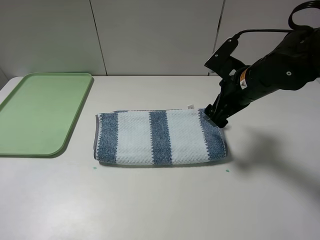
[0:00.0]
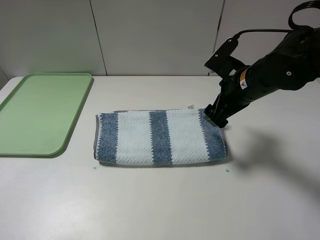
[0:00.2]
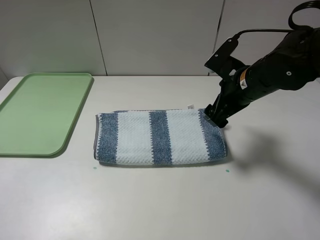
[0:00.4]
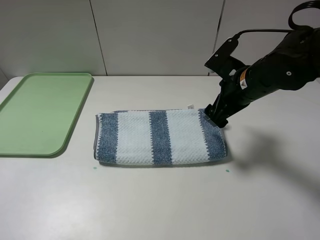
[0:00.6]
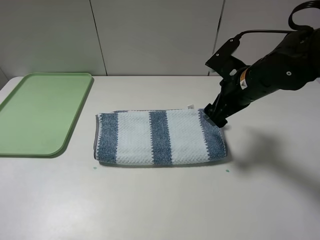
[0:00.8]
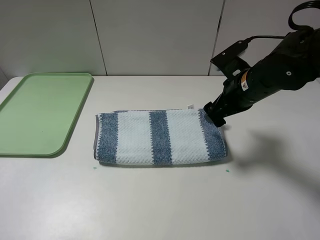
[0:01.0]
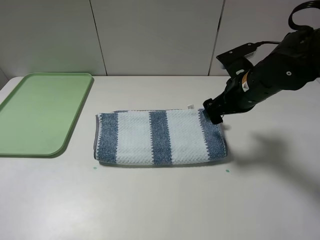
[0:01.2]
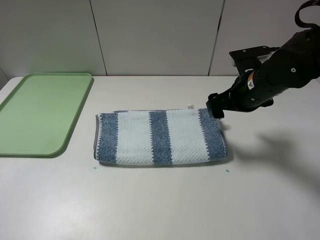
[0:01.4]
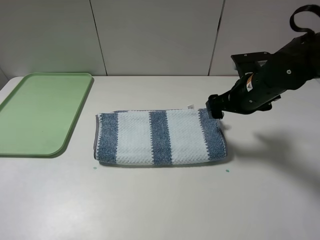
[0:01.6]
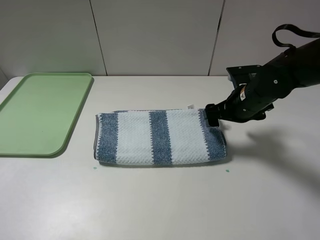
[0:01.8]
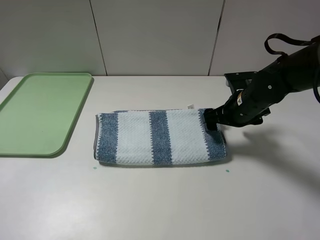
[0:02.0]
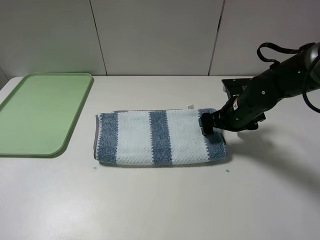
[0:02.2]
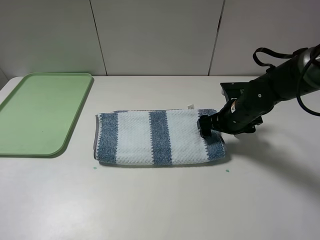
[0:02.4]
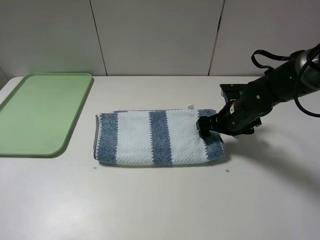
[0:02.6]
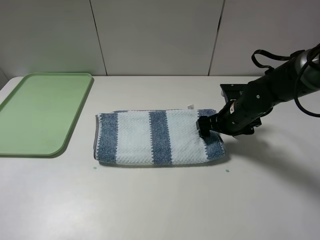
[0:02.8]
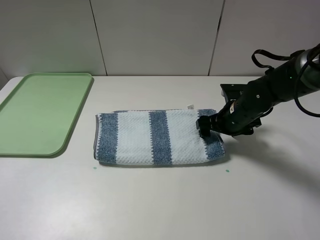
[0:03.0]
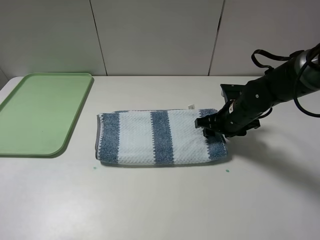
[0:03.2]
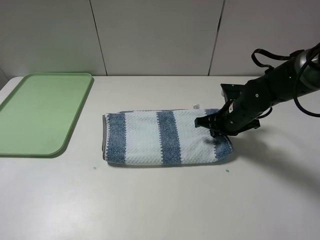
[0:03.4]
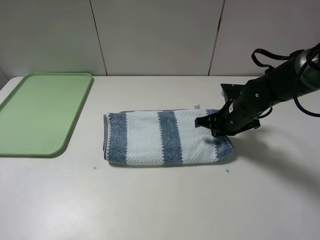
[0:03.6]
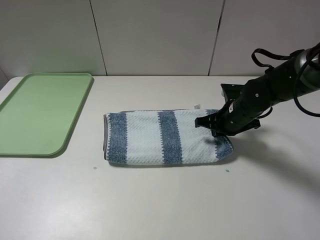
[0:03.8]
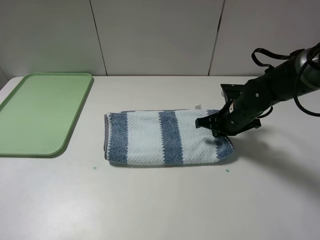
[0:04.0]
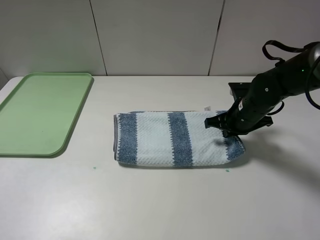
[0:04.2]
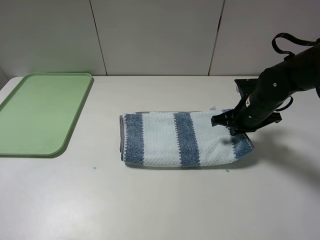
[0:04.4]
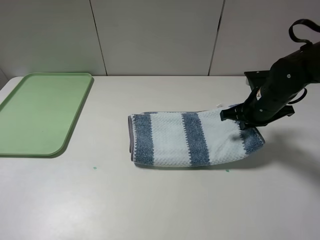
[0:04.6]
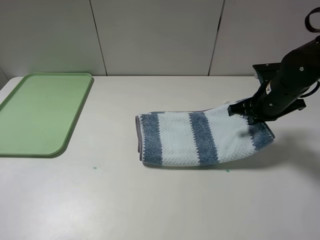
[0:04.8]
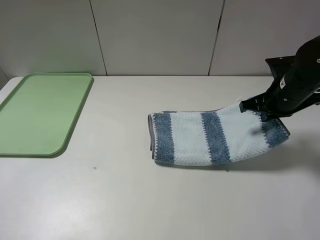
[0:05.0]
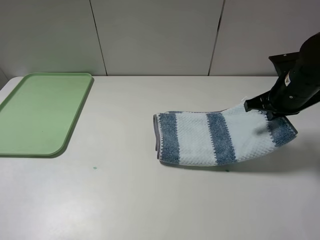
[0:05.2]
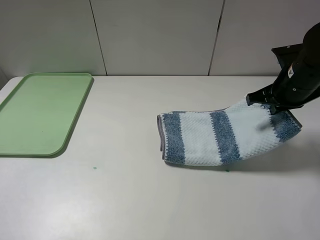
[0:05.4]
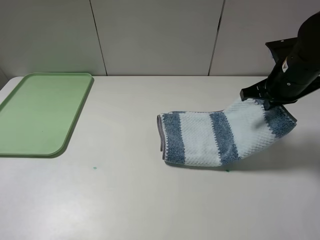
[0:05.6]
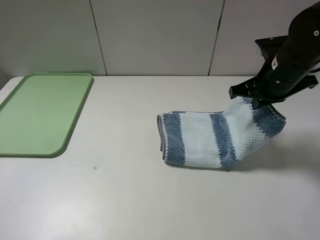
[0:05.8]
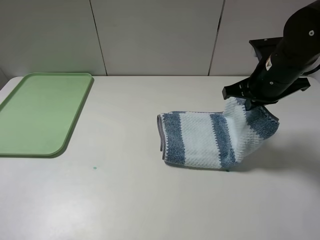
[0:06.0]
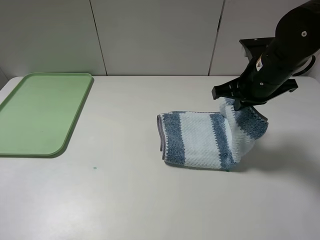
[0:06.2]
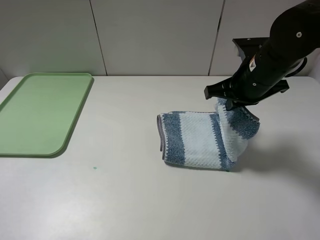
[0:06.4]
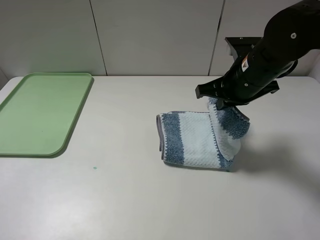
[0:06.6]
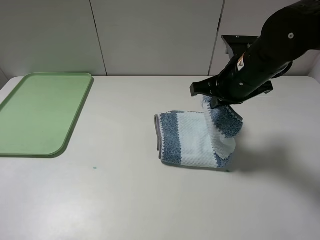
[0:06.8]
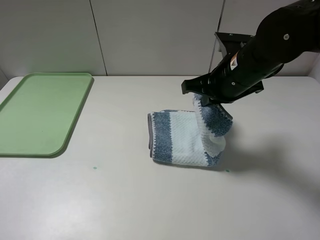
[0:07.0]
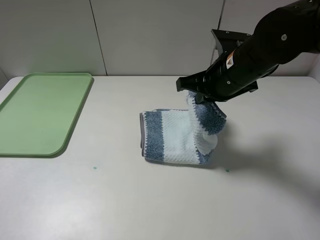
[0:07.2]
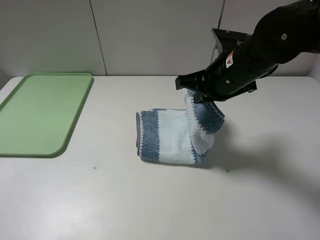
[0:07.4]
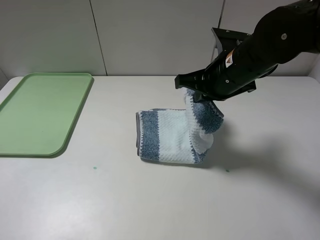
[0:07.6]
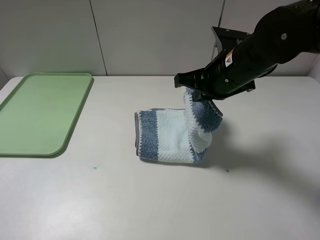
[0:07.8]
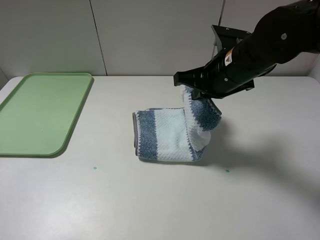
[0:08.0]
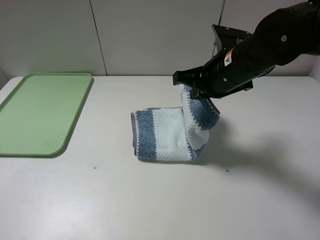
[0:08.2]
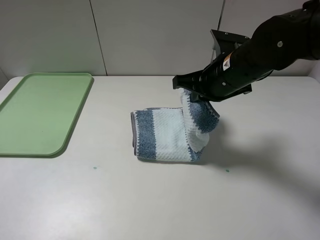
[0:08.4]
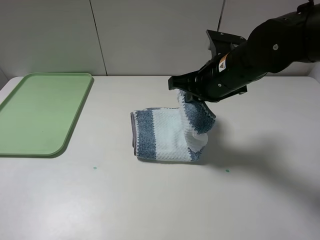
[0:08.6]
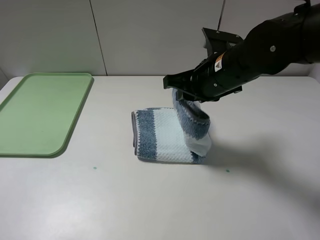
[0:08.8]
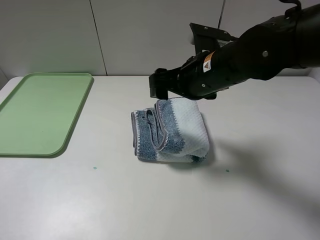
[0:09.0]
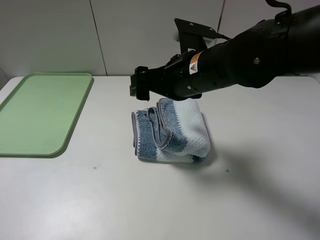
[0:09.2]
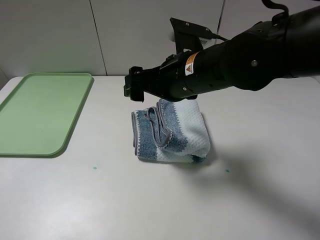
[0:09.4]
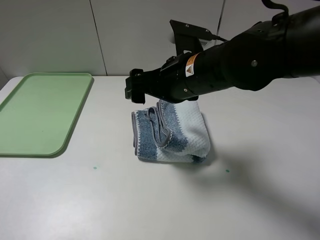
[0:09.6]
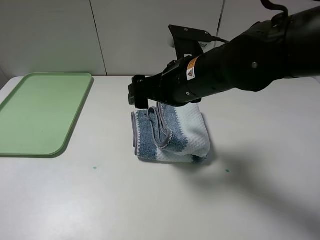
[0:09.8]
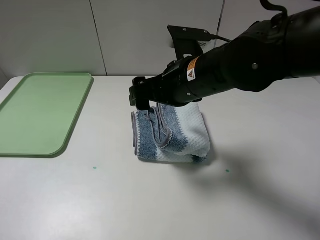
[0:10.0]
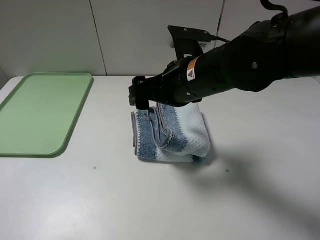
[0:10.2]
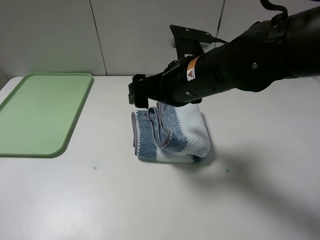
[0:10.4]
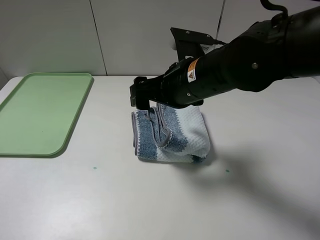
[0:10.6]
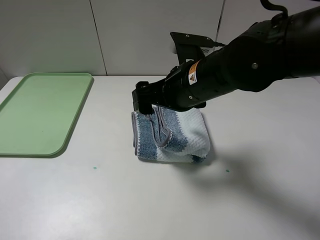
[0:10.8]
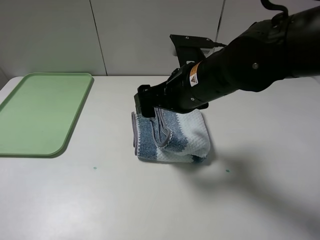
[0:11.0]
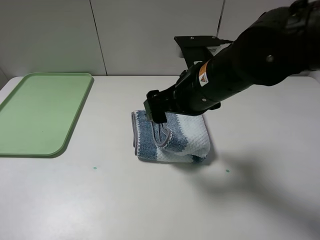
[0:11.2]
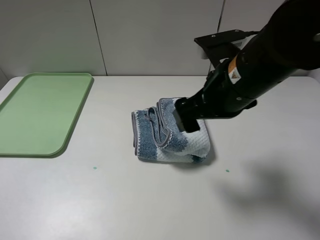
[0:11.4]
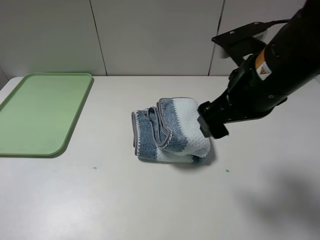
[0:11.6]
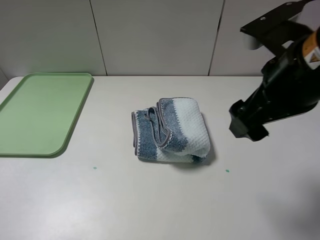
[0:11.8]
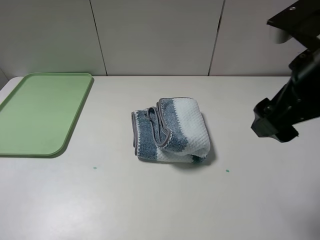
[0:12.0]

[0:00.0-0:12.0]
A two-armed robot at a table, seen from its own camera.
Step, 0:00.0 to 0:03.8: Grasp the blue white towel with the right gripper.
Step, 0:04.0 to 0:09.8: Fold the blue white towel from right to left with right gripper.
0:01.6 to 0:03.0: The right gripper shifts about 5 cm downward.
0:03.0 to 0:04.4: The right gripper closes its fingers.
0:04.4 to 0:06.0: The right gripper shifts roughly 10 cm upward.
0:06.0 to 0:07.6: The right gripper moves to the left, about 10 cm.
0:07.6 to 0:09.0: The right gripper opens its fingers.
0:09.0 to 0:10.4: There are only small adjustments of the grippers.
0:10.4 to 0:12.0: The right gripper heads to the right, backward and upward, covering approximately 15 cm.

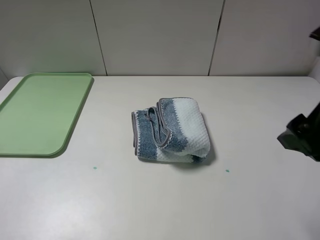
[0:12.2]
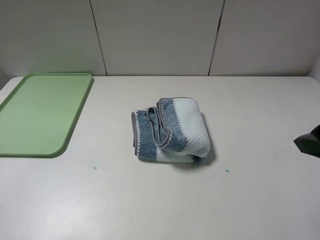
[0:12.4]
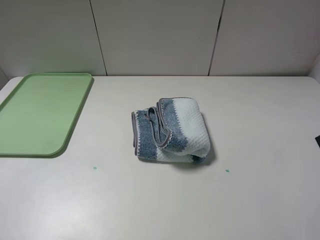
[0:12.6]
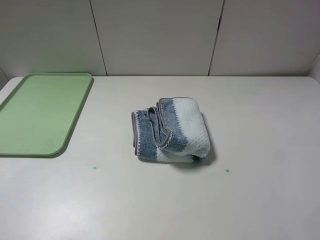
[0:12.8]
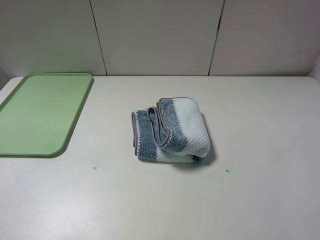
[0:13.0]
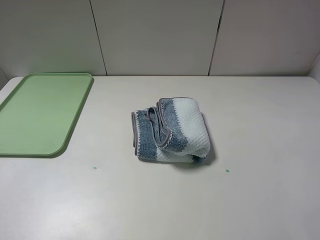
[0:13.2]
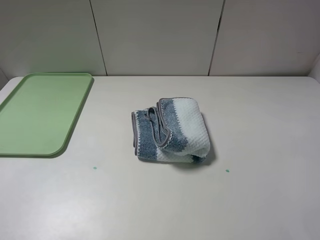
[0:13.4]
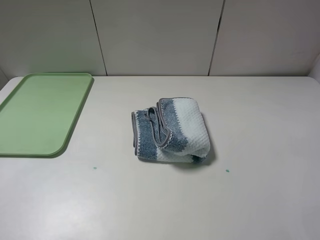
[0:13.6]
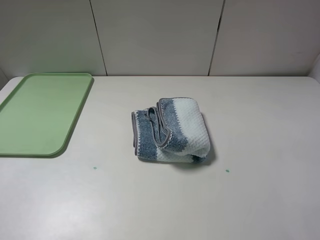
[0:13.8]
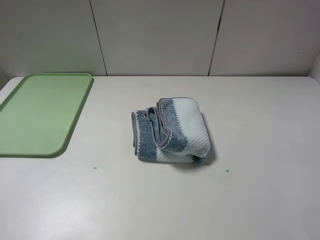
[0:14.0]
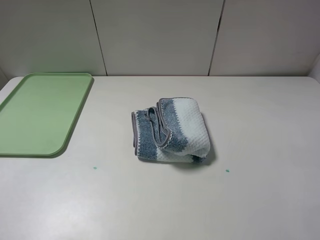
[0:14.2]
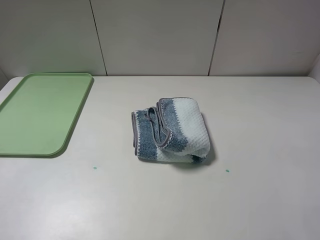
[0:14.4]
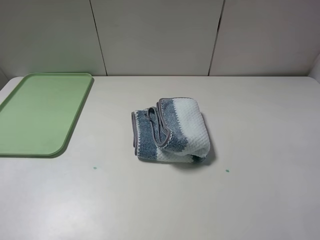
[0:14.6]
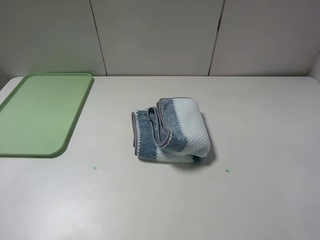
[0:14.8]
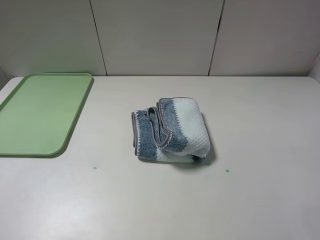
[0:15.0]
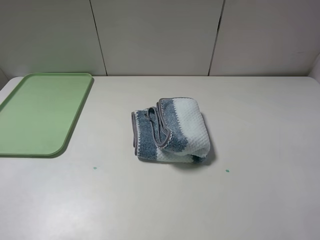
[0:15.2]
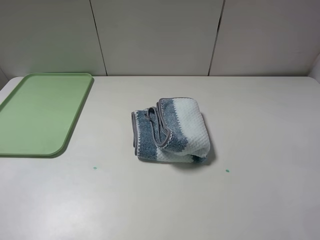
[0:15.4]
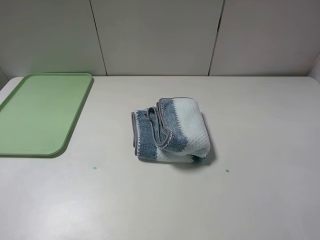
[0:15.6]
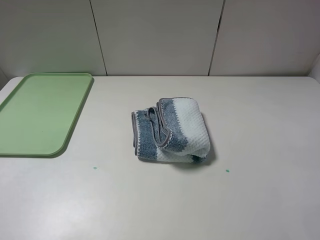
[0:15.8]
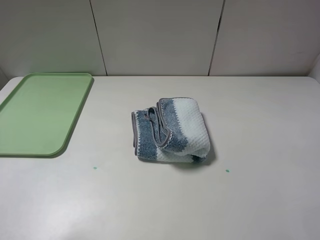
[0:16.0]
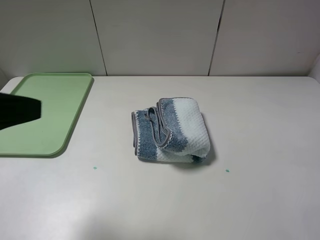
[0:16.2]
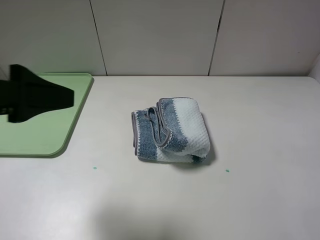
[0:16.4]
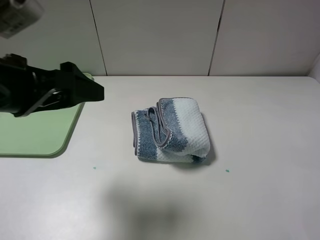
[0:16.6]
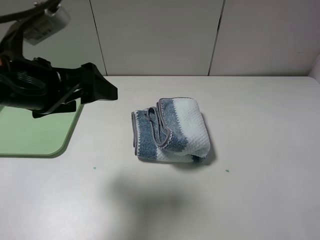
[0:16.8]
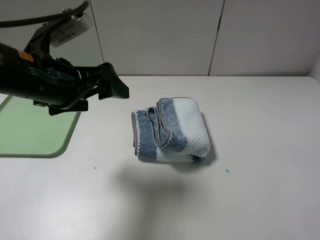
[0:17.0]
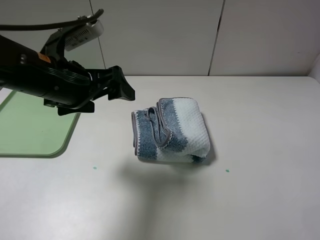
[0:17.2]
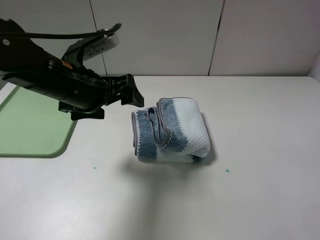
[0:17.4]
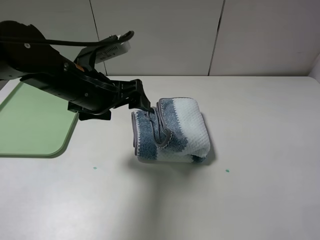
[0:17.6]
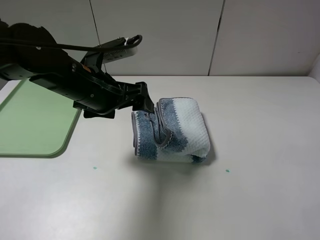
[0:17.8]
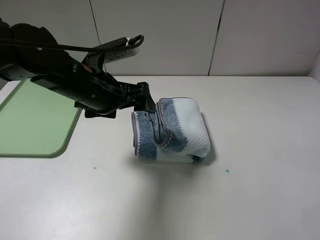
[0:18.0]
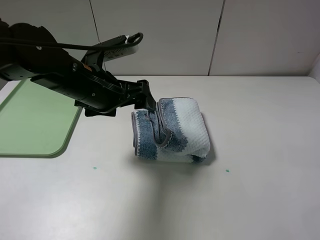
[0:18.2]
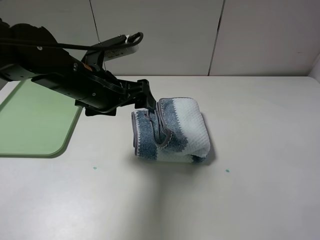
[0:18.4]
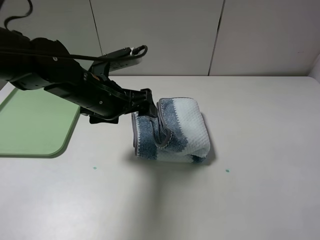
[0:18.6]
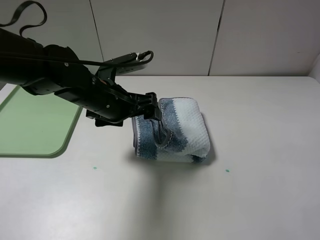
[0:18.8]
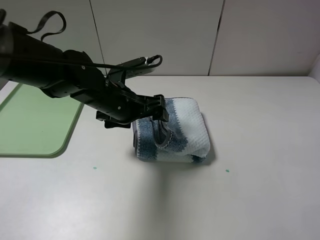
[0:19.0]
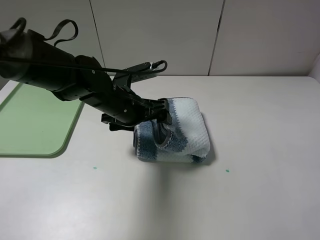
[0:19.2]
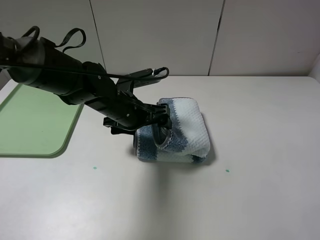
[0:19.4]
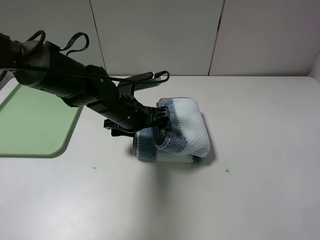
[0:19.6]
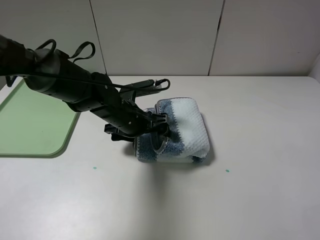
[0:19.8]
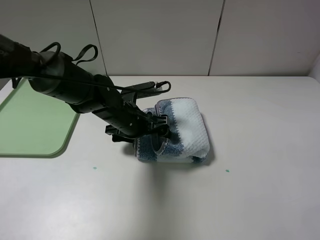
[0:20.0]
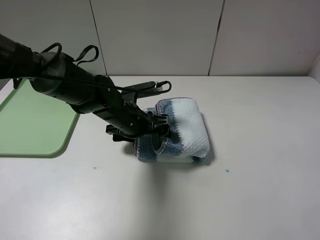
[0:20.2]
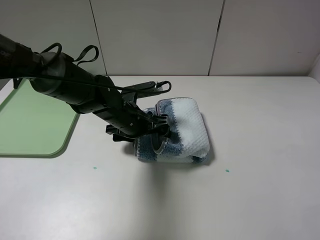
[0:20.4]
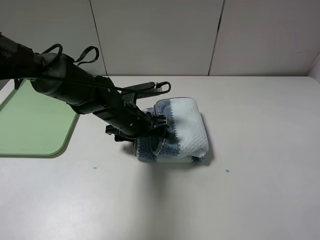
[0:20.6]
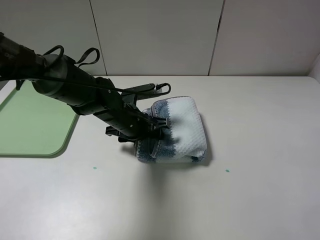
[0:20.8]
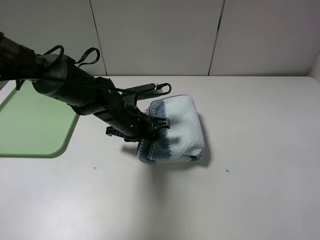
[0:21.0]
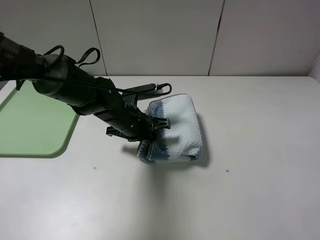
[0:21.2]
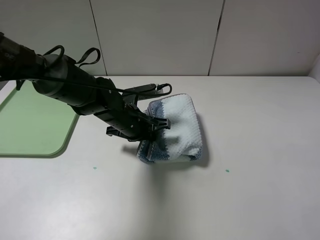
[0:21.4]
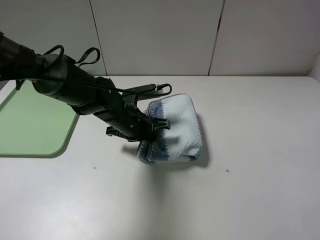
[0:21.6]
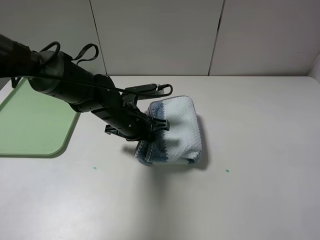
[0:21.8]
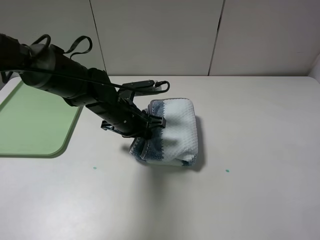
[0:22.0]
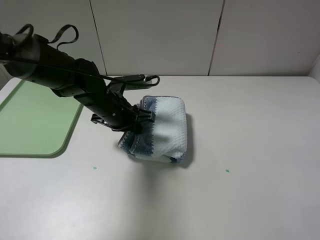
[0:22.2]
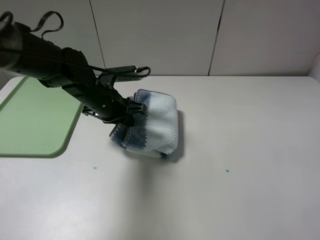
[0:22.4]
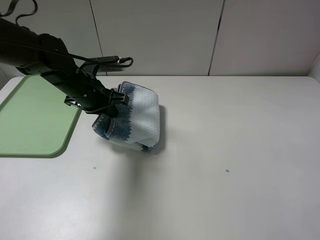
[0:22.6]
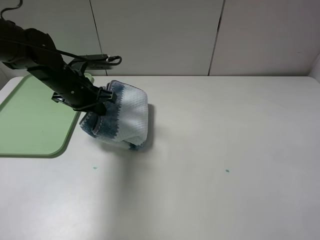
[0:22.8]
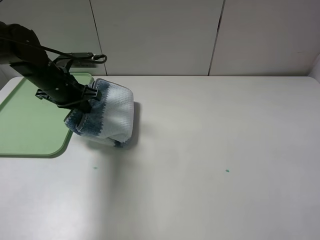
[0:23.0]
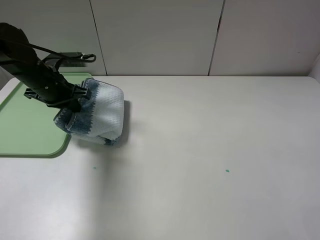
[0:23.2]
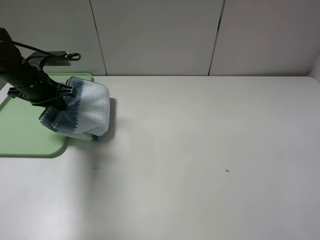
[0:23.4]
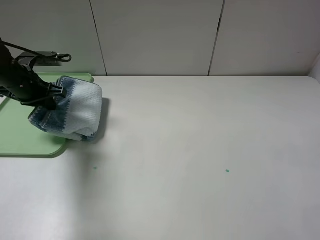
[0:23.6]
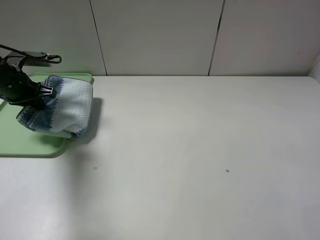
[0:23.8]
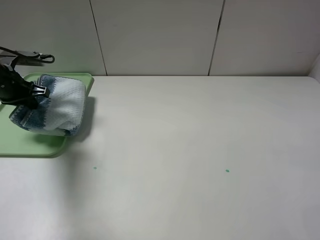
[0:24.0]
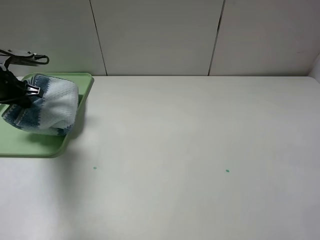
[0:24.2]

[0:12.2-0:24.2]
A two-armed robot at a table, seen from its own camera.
Step, 0:12.2 to 0:21.6: Grasp the blue white towel with the left gripper.
0:12.2 to 0:13.8: The right gripper travels backward and to the right by some 15 cm.
0:15.2 to 0:16.6: The left gripper moves forward and to the right, about 20 cm.
0:16.6 to 0:18.2: The left gripper moves forward, to the right and downward, approximately 15 cm.
0:18.2 to 0:19.8: The left gripper is displaced downward by roughly 10 cm.
0:19.8 to 0:21.2: The left gripper closes its fingers.
0:21.2 to 0:22.6: The left gripper shifts about 10 cm to the left and upward.
0:22.6 to 0:24.2: The left gripper travels to the left by approximately 20 cm.
